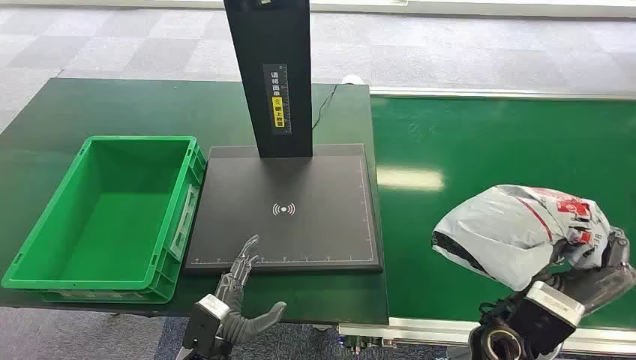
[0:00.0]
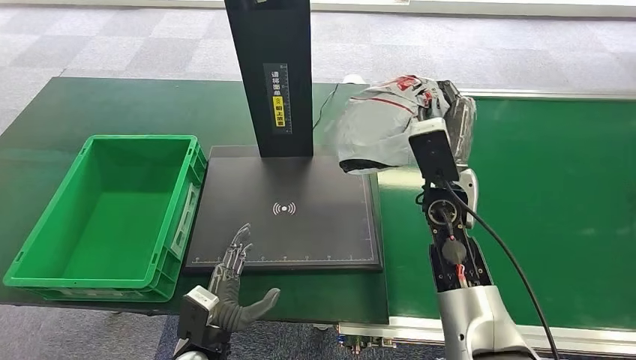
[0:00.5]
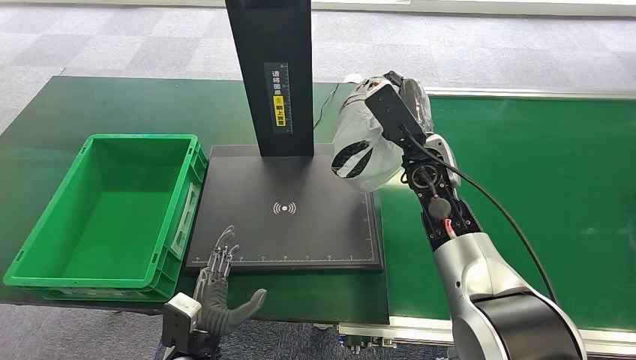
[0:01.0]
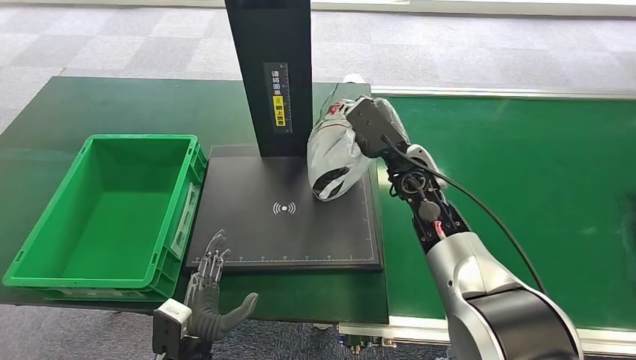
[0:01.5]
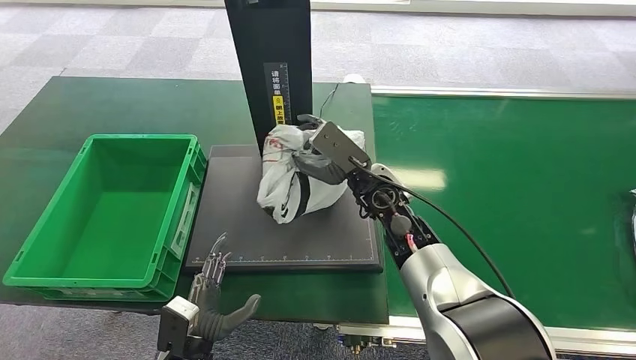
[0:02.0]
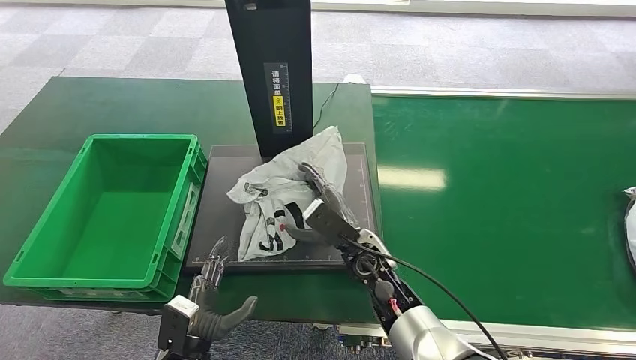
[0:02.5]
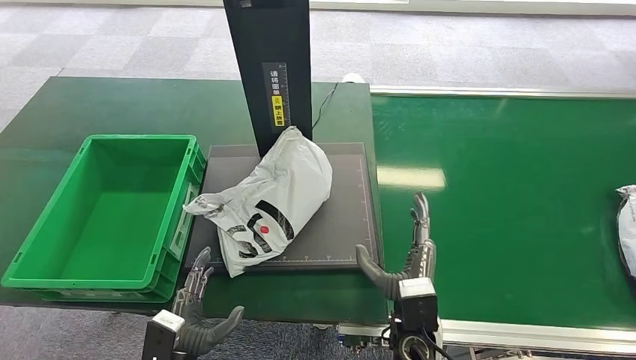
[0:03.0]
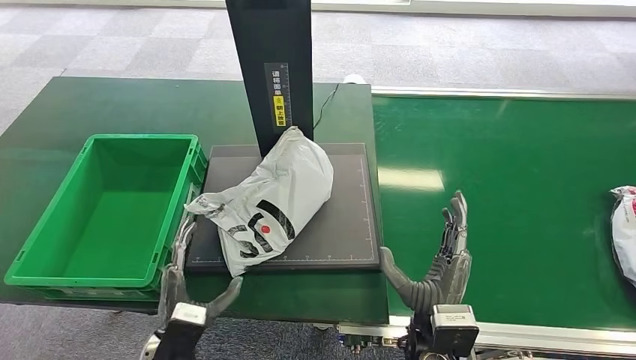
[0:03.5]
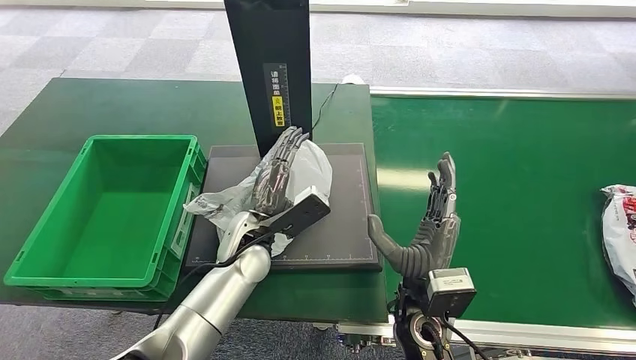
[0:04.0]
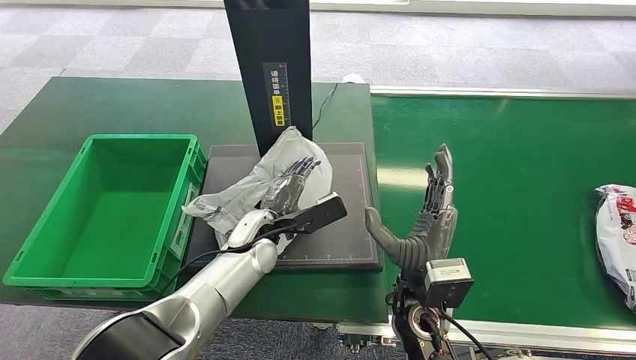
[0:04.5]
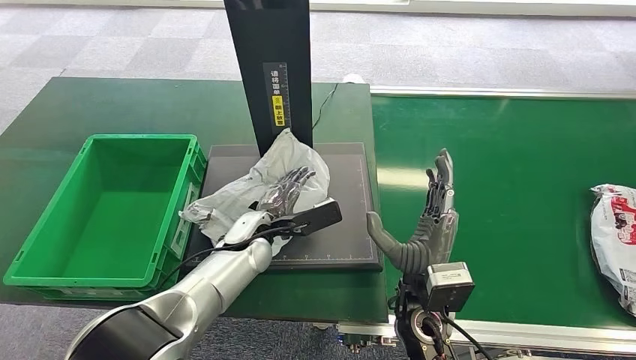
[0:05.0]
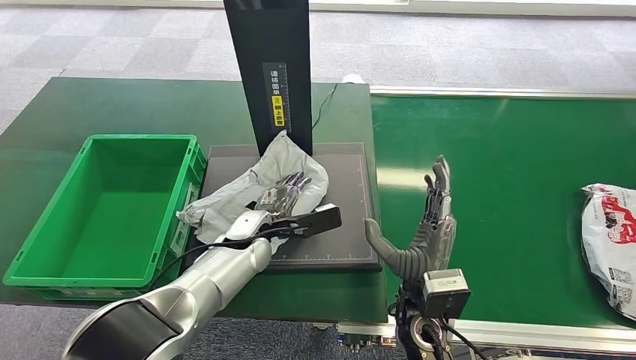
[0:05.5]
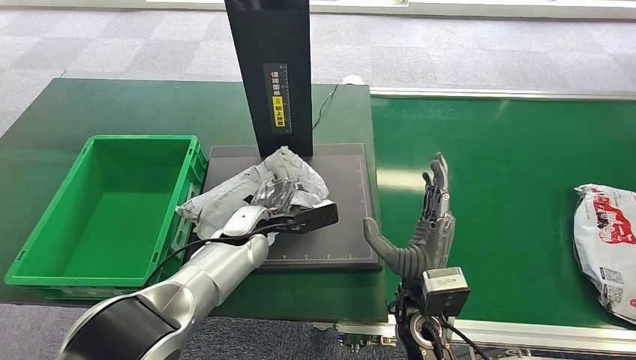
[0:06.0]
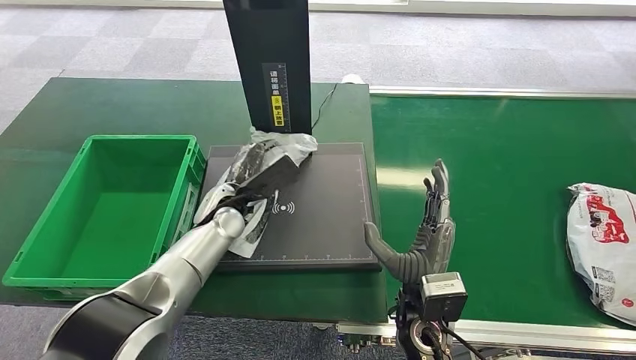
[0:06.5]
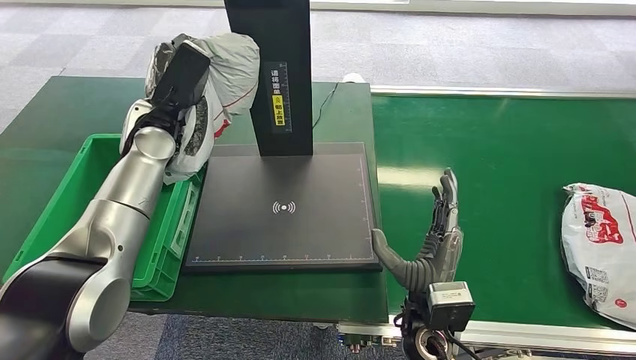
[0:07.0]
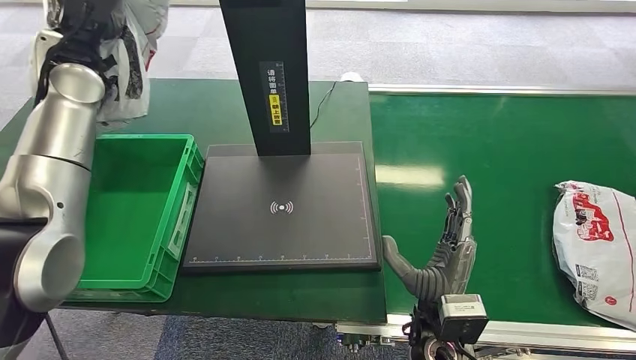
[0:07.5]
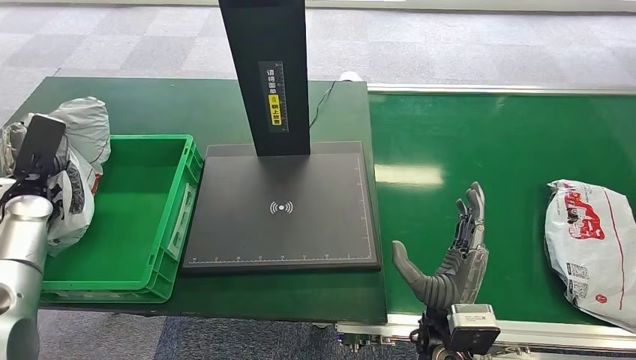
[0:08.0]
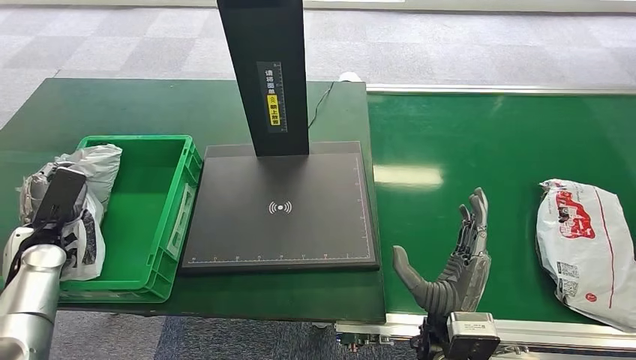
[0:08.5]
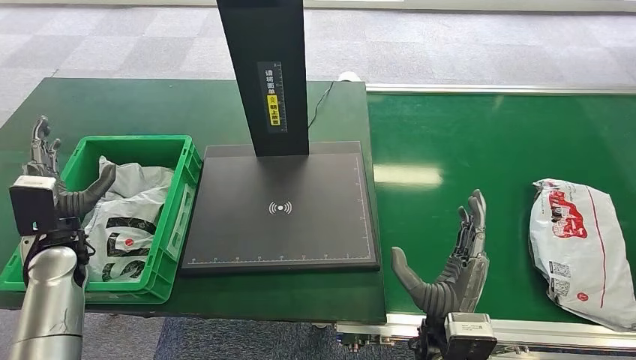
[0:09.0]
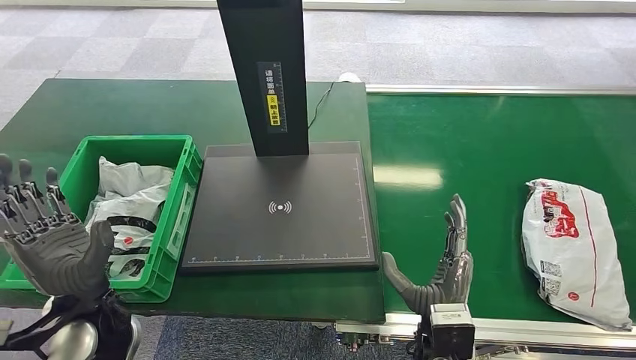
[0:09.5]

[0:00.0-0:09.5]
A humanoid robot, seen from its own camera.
0:04.0 to 0:05.5: The left hand ends up roughly 5 cm from where it was.
